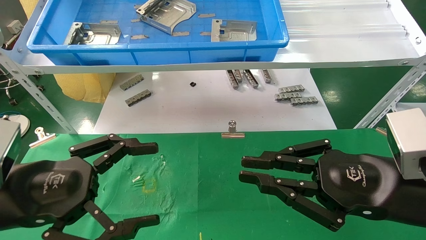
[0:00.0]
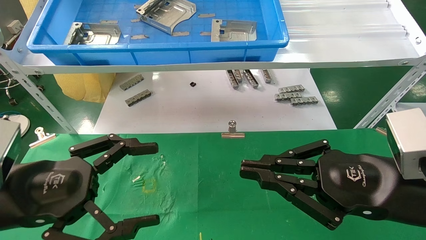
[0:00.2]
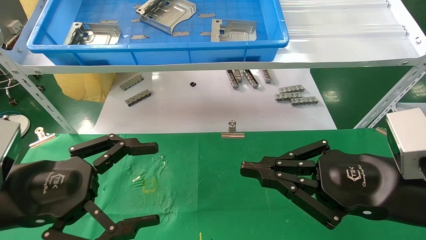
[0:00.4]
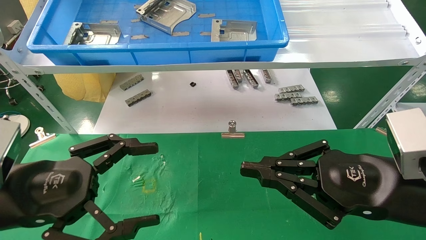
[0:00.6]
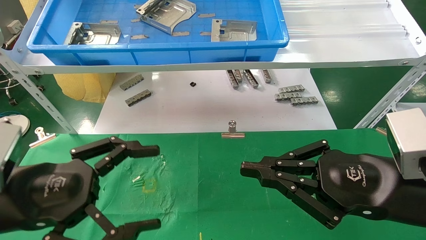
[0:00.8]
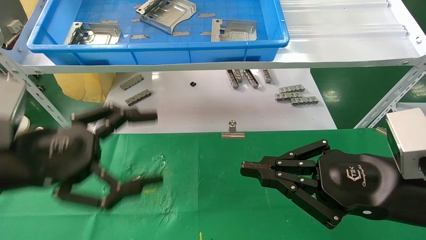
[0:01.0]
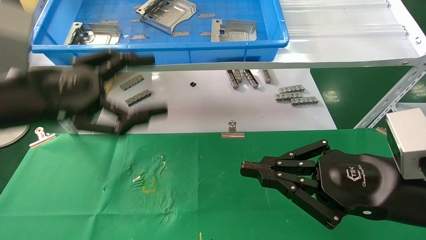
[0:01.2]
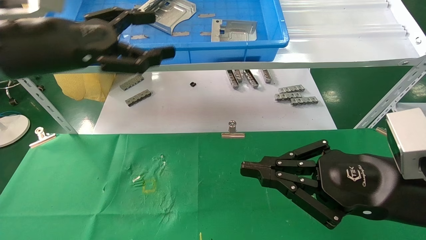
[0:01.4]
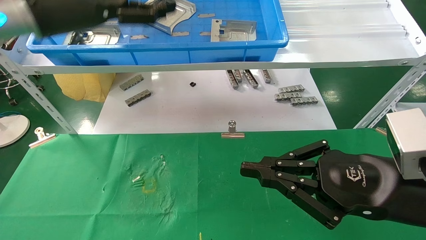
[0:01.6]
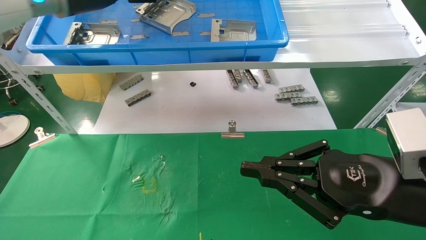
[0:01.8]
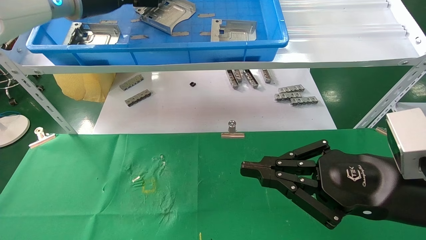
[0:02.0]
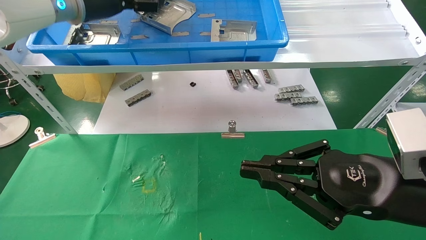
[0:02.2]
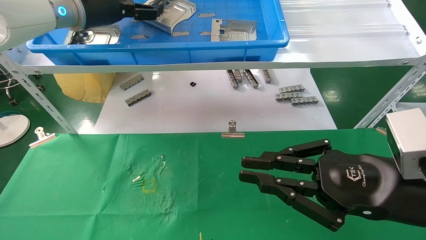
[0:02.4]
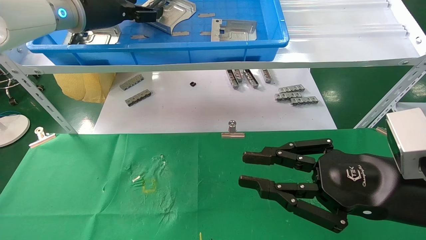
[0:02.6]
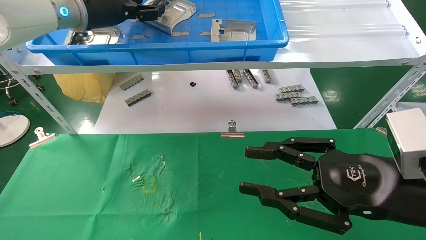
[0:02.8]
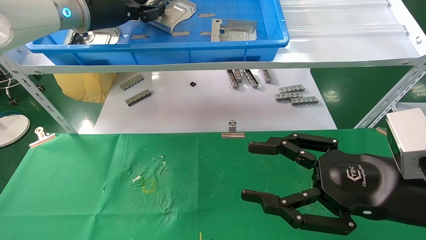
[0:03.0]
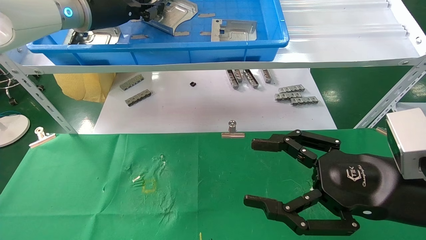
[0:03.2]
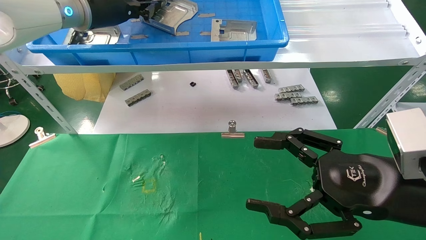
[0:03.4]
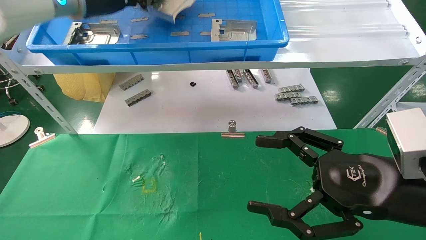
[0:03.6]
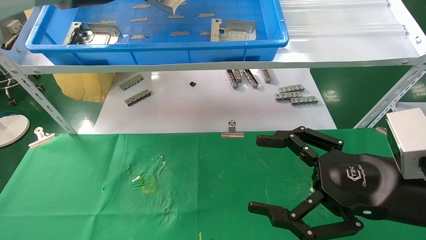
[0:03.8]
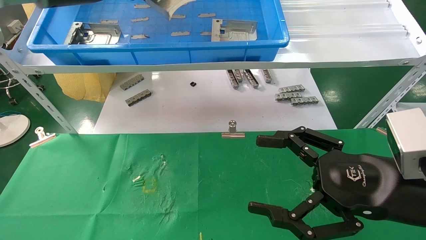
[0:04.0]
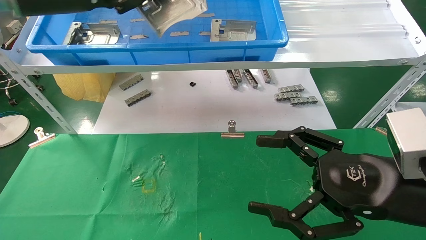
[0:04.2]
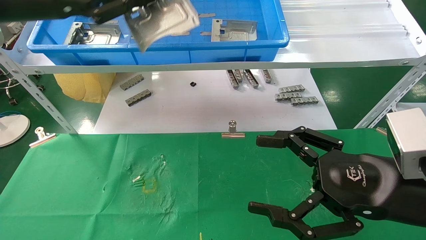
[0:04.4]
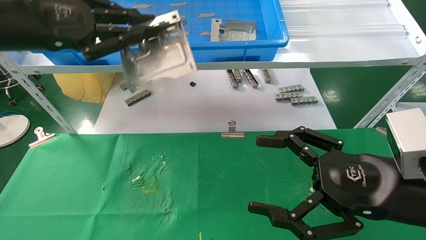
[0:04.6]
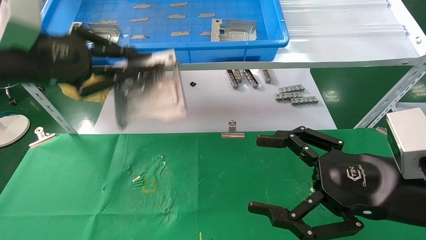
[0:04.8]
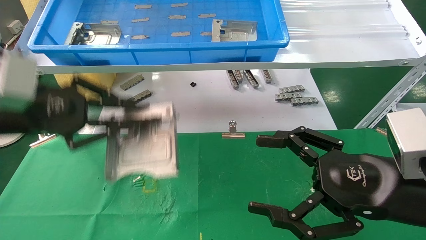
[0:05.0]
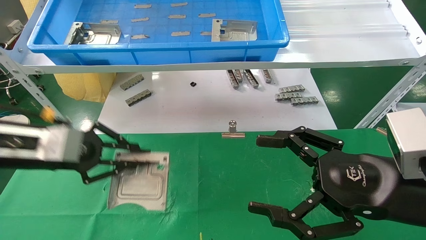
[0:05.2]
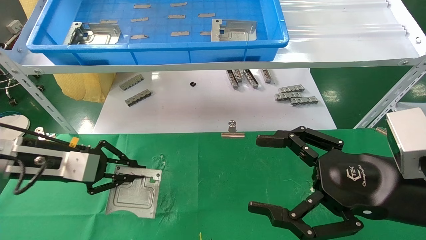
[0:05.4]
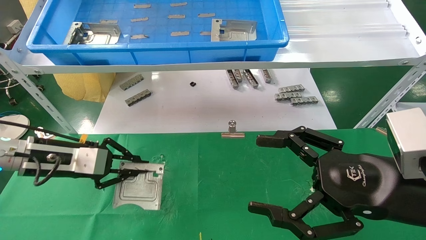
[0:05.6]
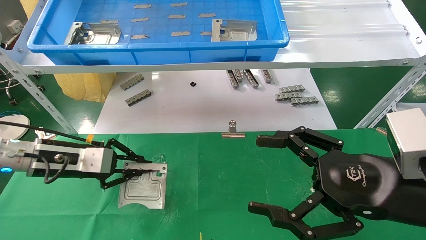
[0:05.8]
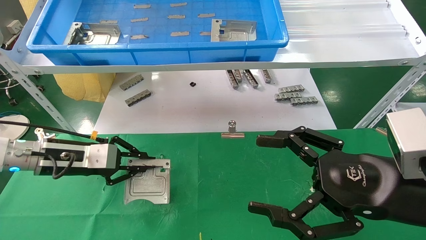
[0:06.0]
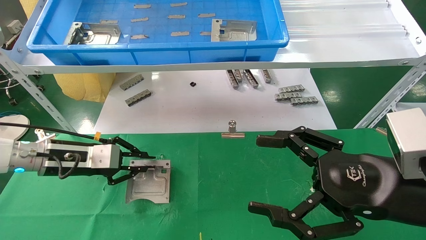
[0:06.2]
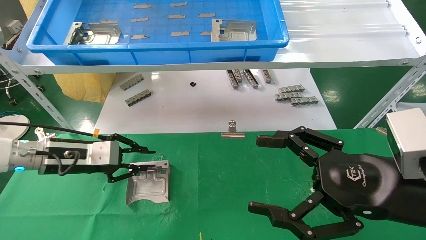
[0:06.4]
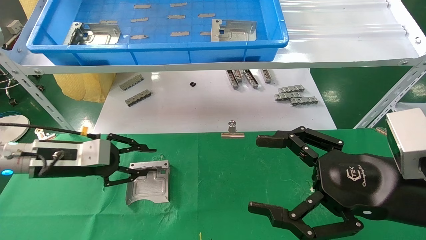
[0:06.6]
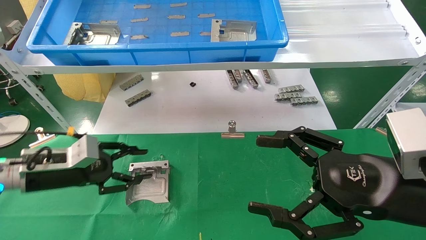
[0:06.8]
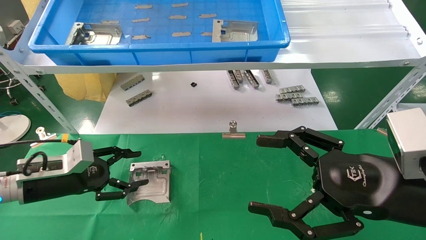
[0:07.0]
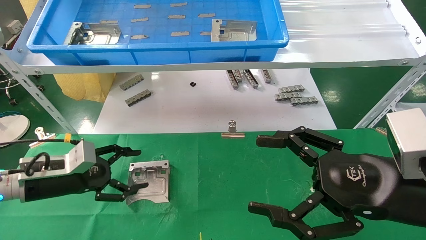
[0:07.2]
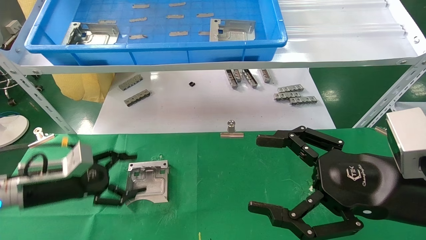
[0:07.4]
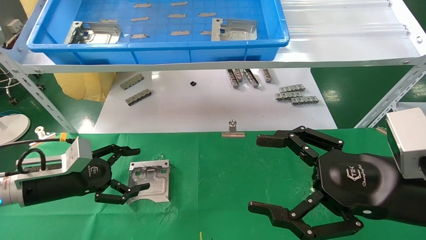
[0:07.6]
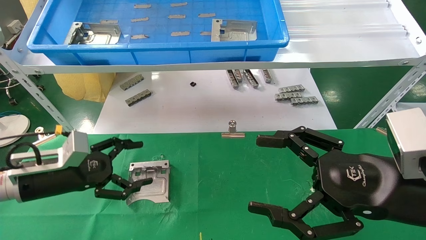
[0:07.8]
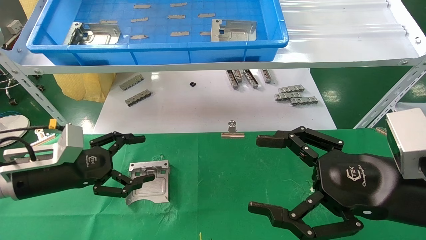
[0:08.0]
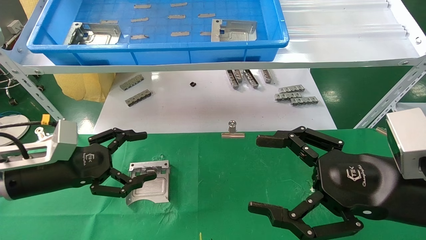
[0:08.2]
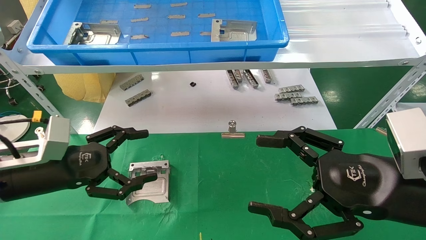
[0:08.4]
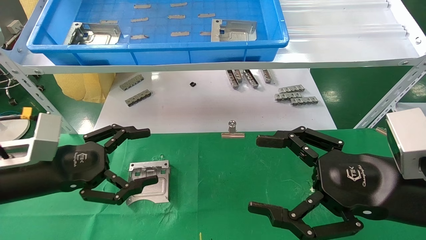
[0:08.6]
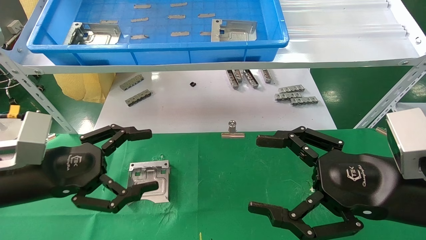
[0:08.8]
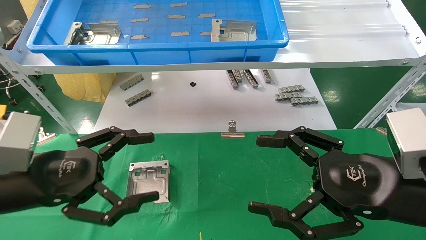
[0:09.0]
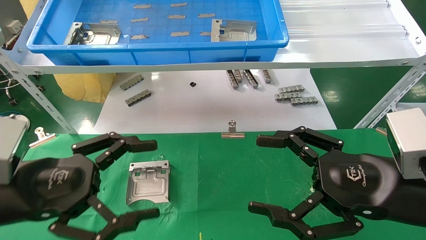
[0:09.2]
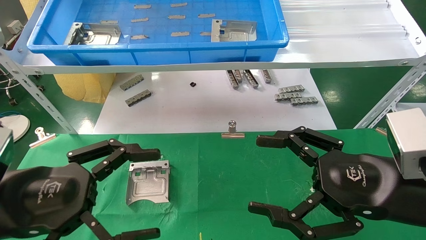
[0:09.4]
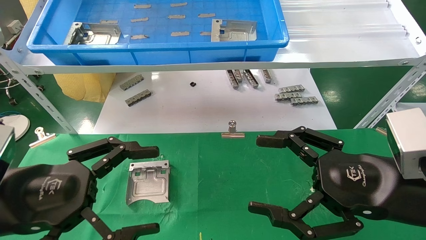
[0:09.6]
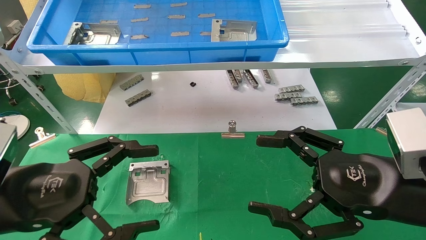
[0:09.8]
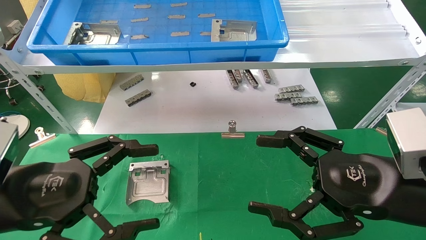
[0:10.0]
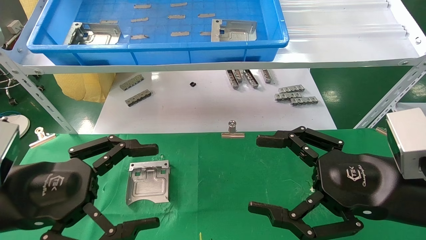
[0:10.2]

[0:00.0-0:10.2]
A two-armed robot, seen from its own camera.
Task of the whole recording: use the mechanical arm to pick up the parts and place them on the table.
Step, 0:01.4 to 0:03.4: Pick up the hard drive bracket from the feeding area.
Step, 0:03.6 to 0:06.2: Place the hard drive bracket into the box.
0:00.0 to 0:01.4: The left gripper goes about 20 cm upward and forward.
0:01.4 to 0:03.0: The right gripper opens up; the left gripper heads forward and upward, covering some 15 cm, and closes.
0:03.0 to 0:04.4: The left gripper travels backward and to the left by about 15 cm, and closes its fingers; the right gripper opens.
0:04.4 to 0:05.8: The left gripper is displaced downward by approximately 25 cm.
0:05.8 to 0:07.2: The left gripper goes about 5 cm downward, and opens its fingers.
0:07.2 to 0:08.8: The left gripper moves backward and upward, approximately 10 cm.
0:08.8 to 0:10.2: The left gripper shifts about 5 cm backward.
